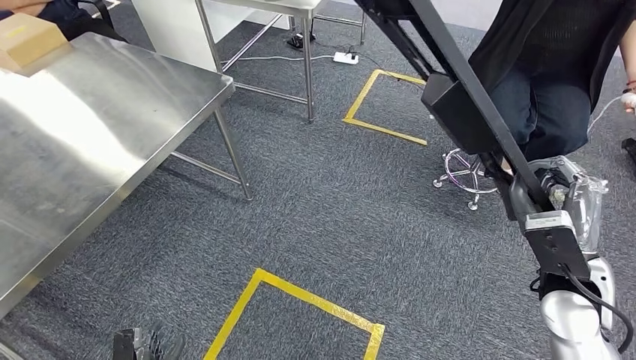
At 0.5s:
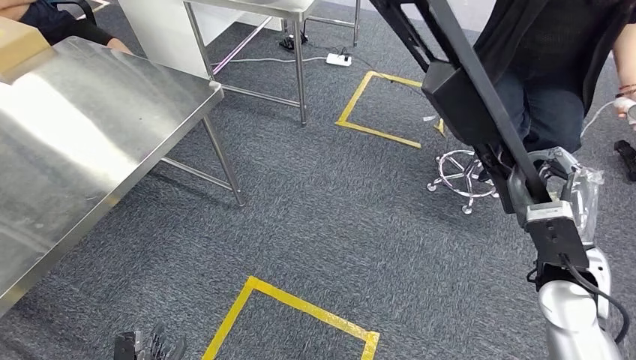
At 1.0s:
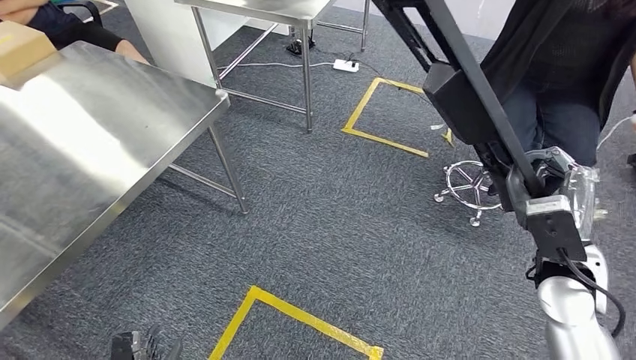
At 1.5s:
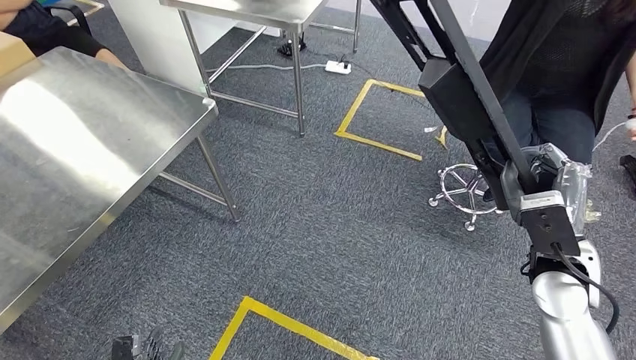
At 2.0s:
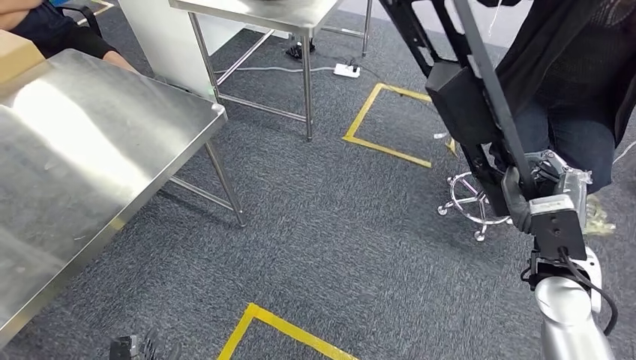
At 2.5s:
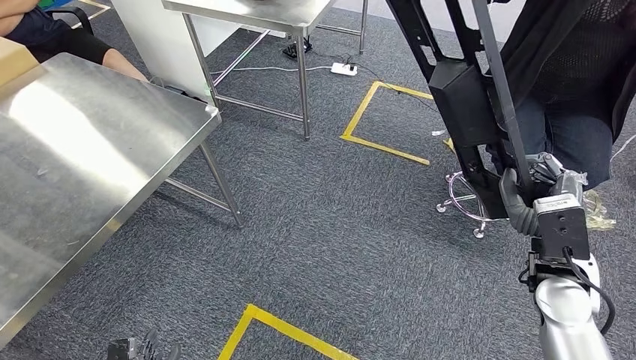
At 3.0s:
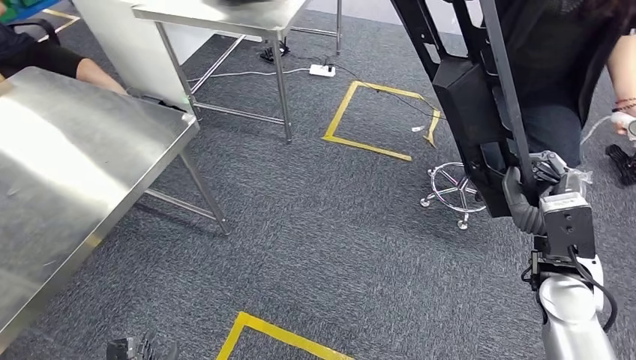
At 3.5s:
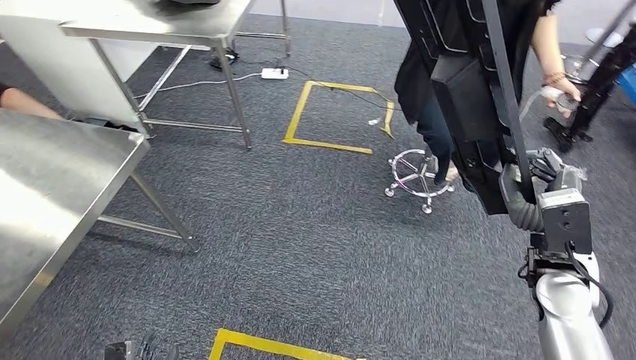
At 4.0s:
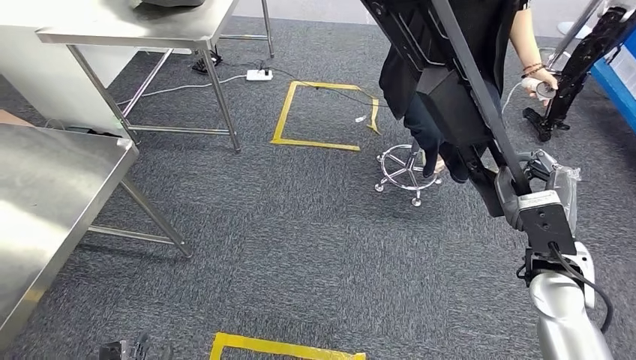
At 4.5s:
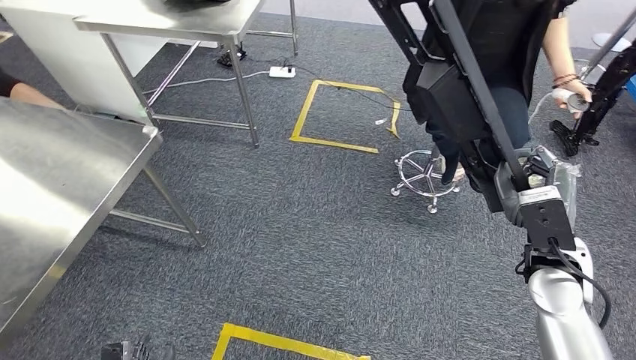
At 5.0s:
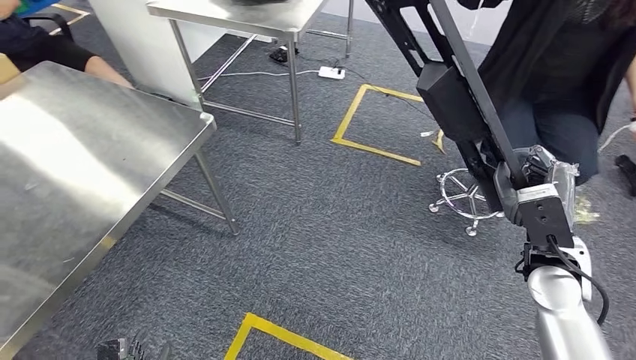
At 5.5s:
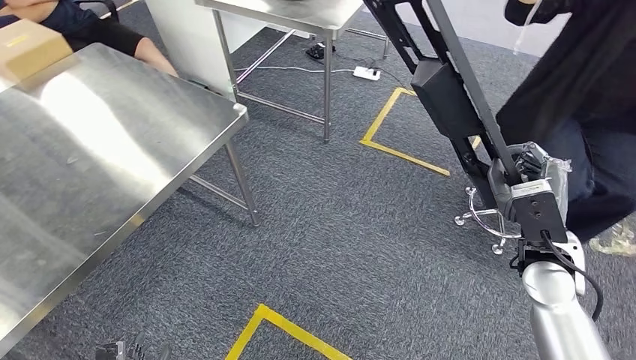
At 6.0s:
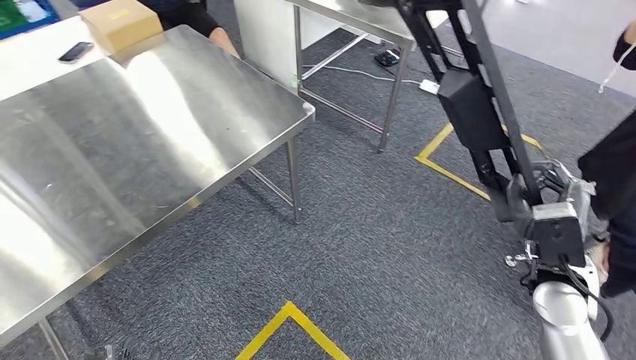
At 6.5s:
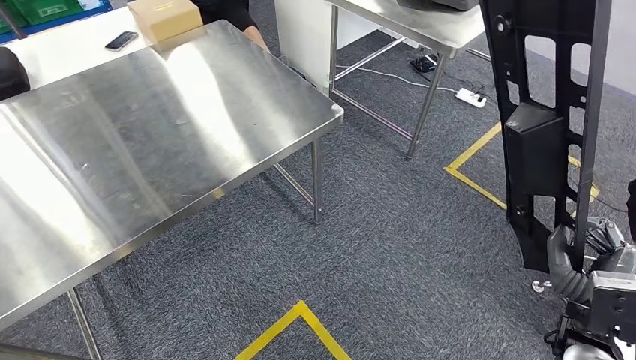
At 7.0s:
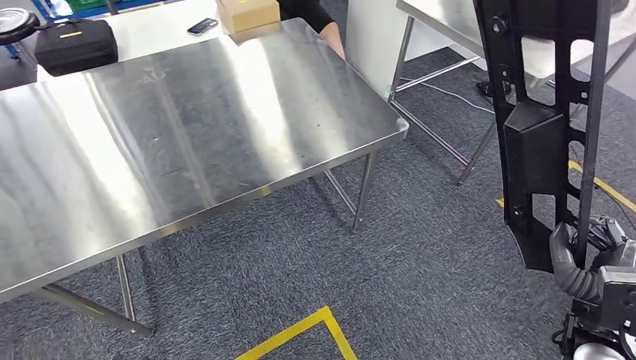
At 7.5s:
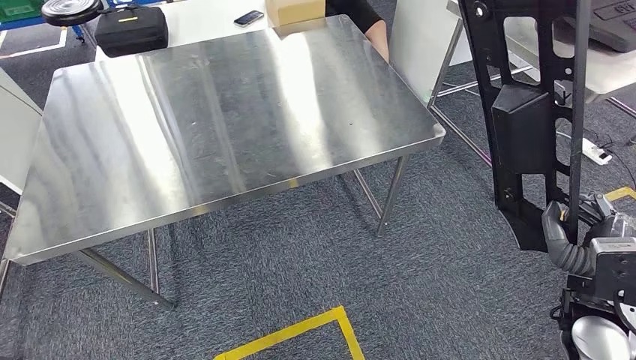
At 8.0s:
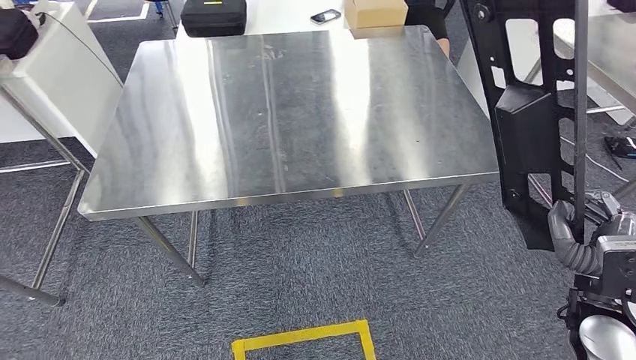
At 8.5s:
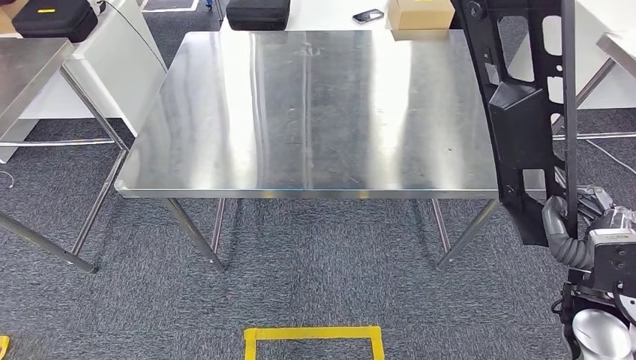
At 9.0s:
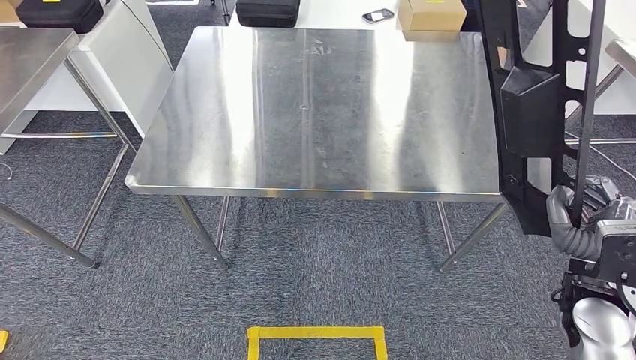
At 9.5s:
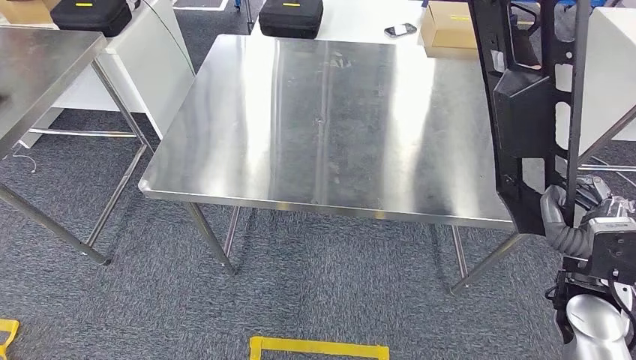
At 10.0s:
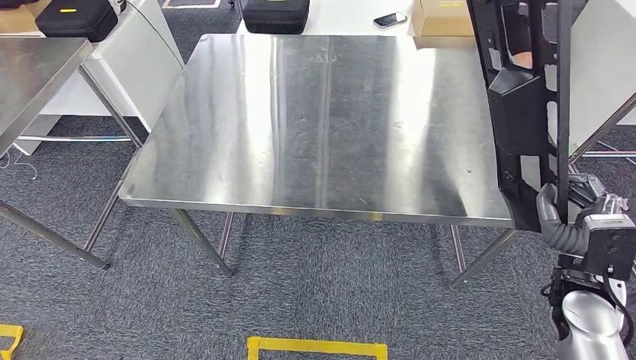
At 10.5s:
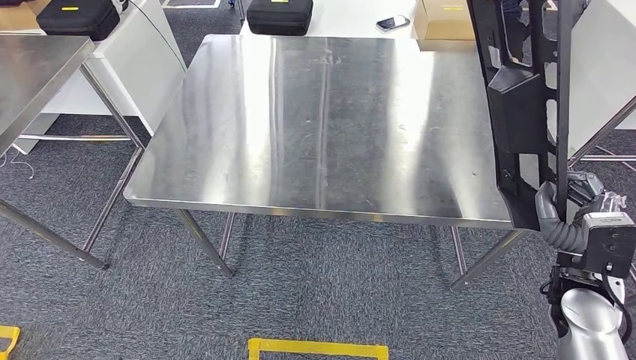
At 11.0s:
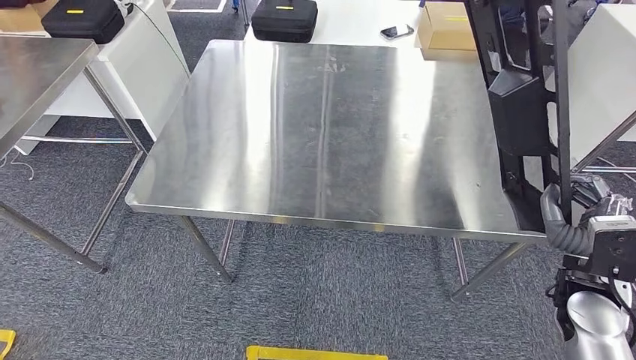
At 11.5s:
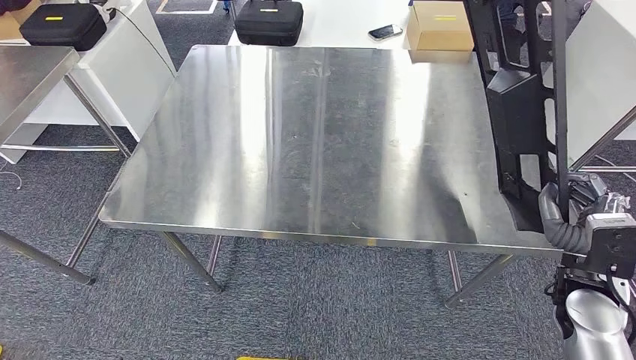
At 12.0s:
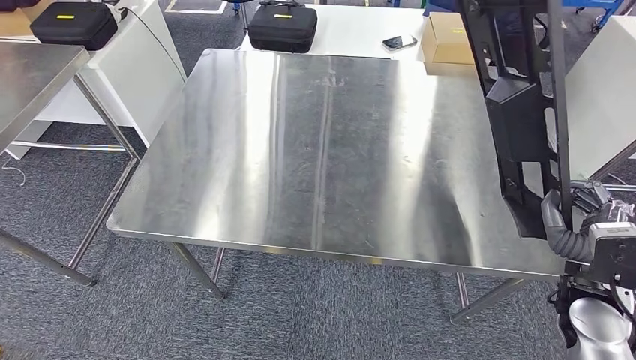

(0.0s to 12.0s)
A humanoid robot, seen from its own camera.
Step, 0.0s - 11.0s: Move the large material to the workbench.

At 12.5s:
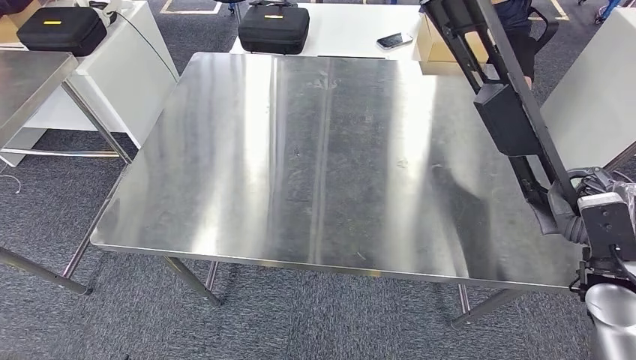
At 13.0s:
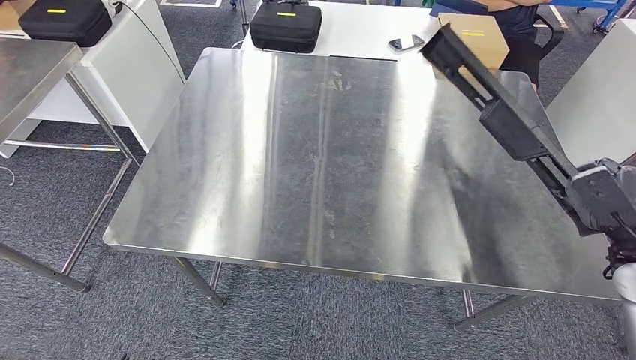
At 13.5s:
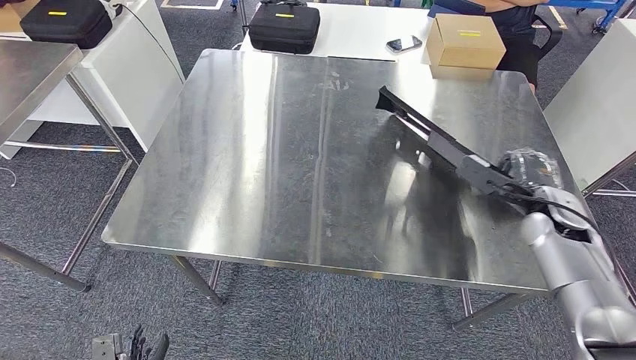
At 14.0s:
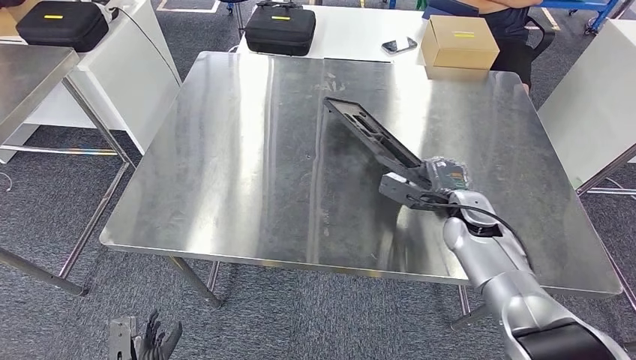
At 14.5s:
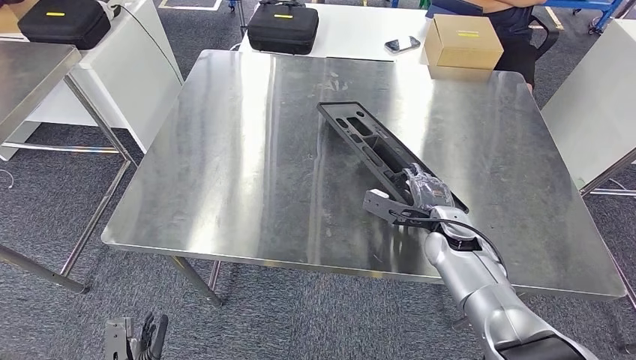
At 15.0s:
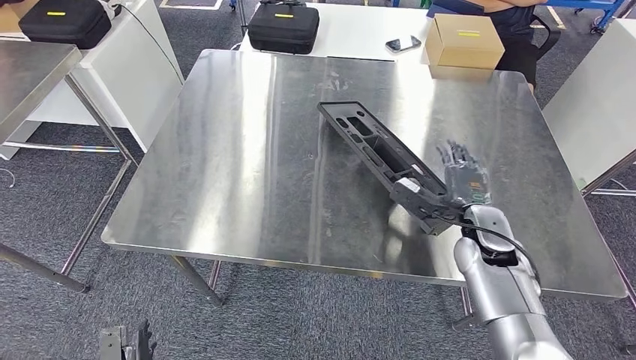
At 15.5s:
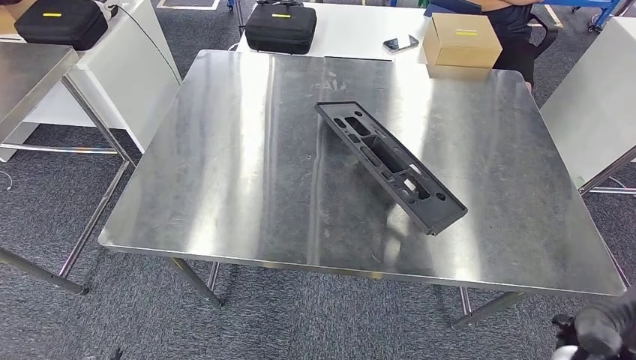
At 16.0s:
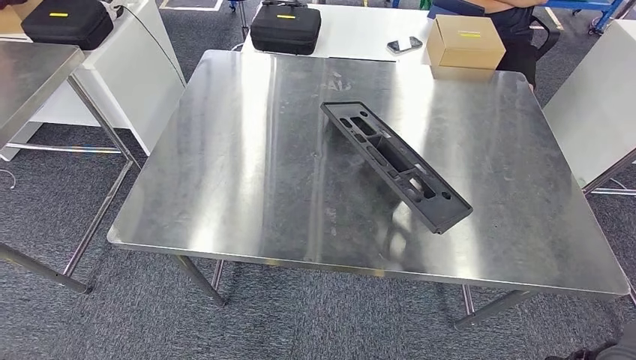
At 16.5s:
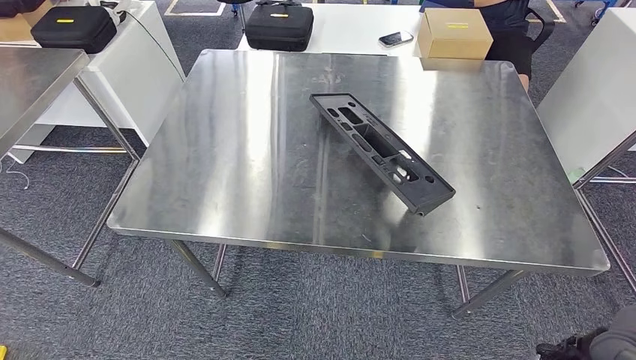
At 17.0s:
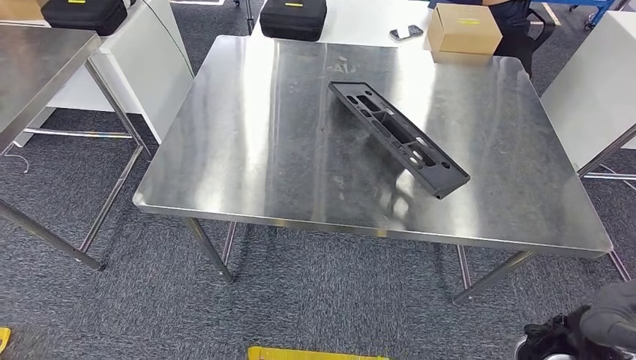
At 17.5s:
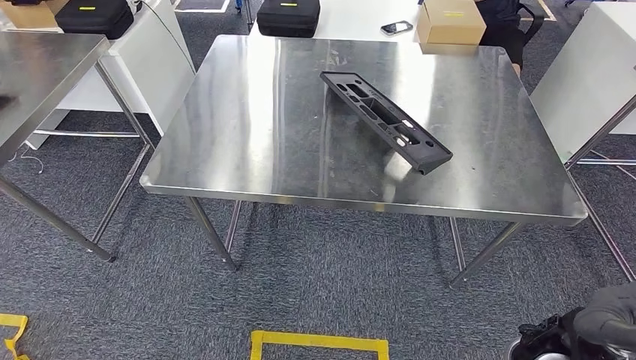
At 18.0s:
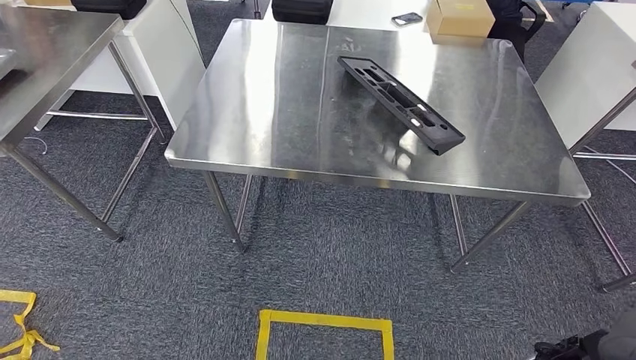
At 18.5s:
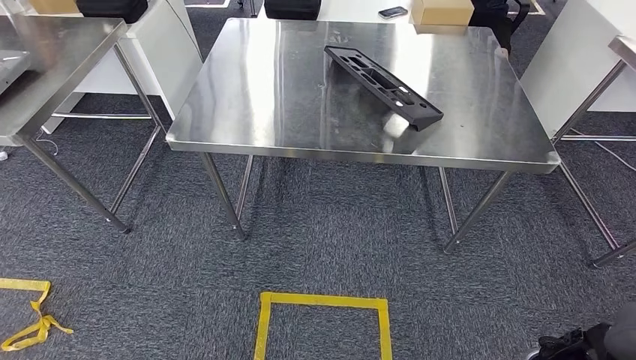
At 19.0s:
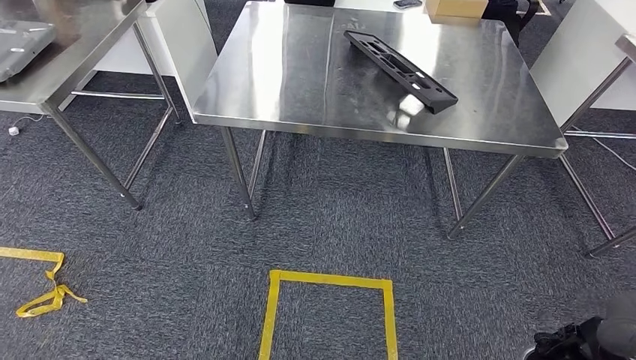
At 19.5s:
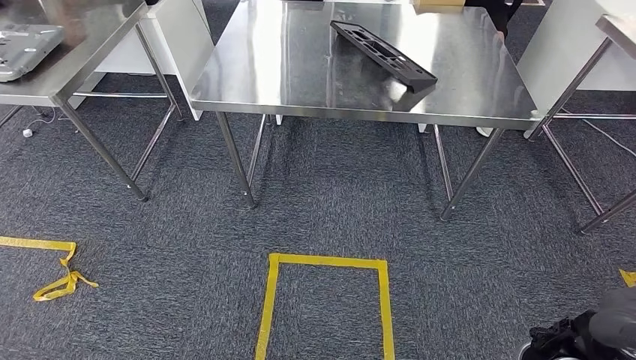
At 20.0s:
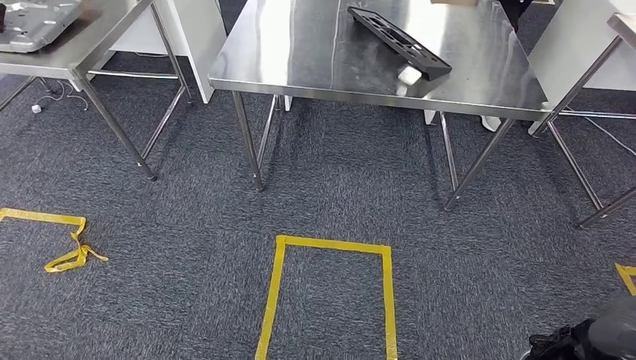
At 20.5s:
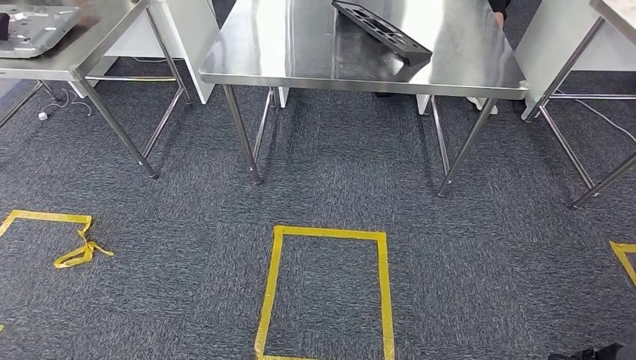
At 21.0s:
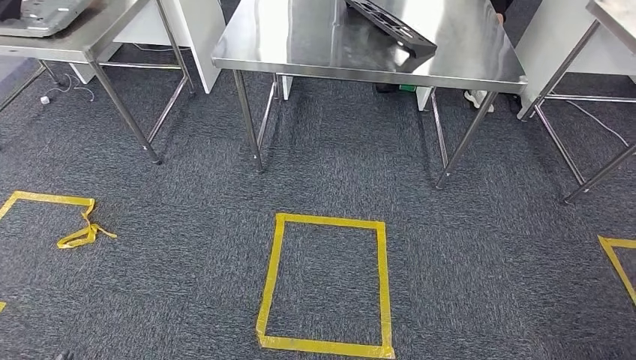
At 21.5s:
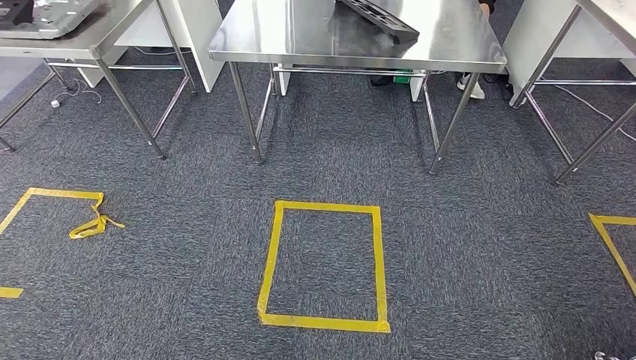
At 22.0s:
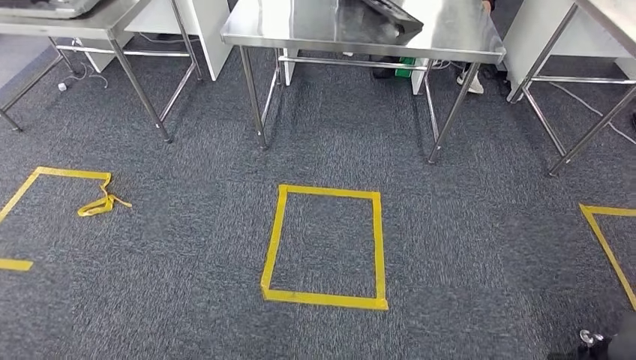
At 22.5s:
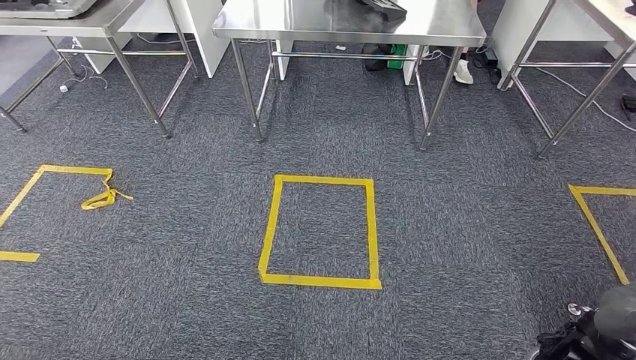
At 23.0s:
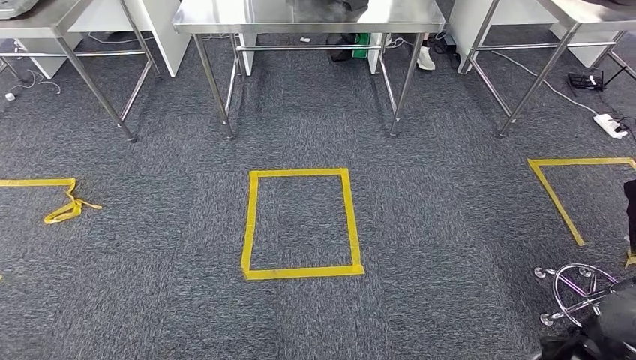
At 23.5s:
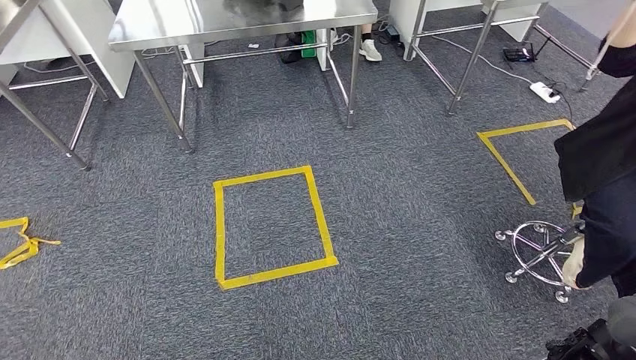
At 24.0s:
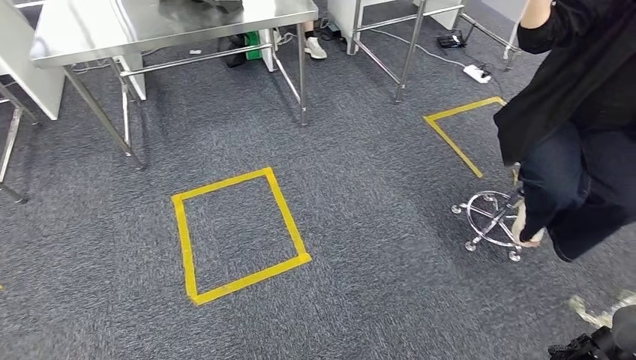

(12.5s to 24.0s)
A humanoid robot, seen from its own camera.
Step, 12.5s - 19.5s: Insert the large material into the corresponding slot on the workbench.
